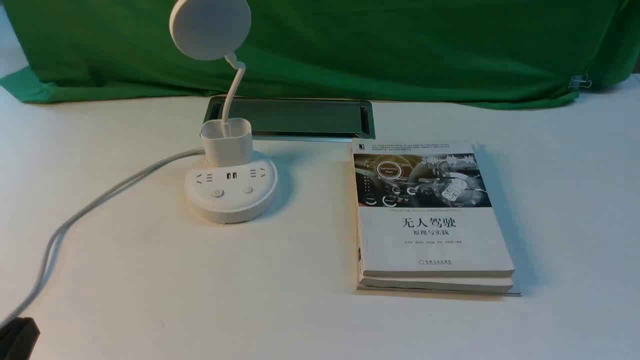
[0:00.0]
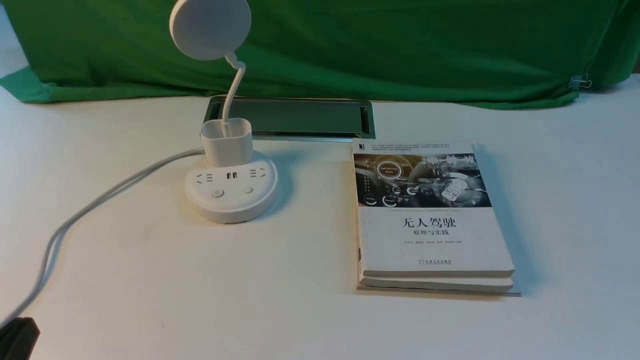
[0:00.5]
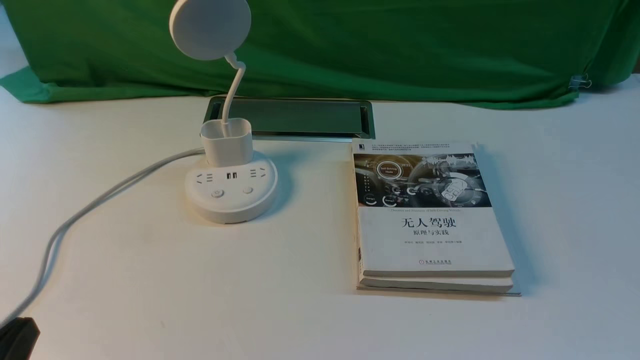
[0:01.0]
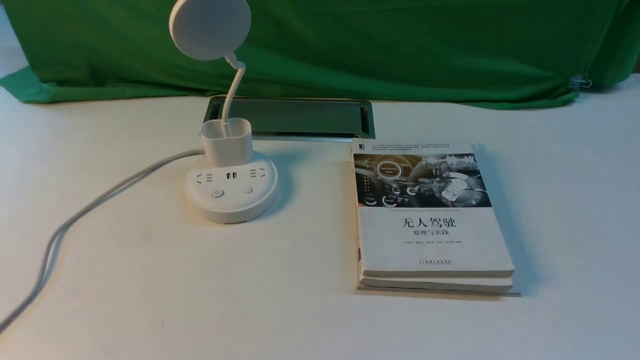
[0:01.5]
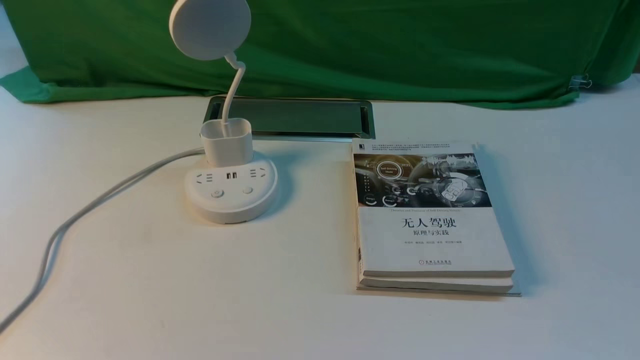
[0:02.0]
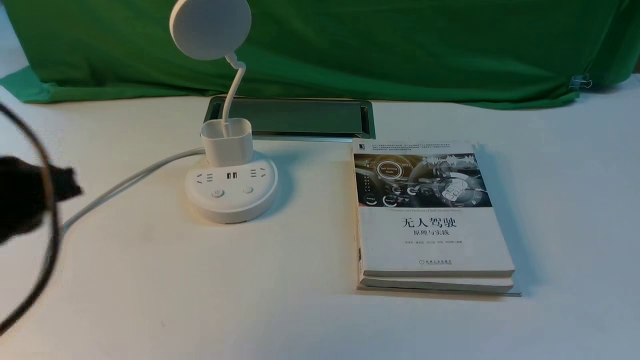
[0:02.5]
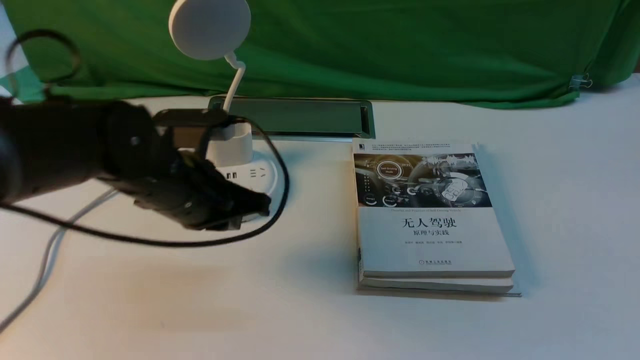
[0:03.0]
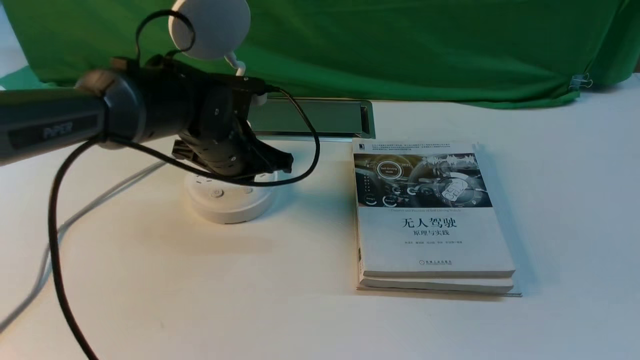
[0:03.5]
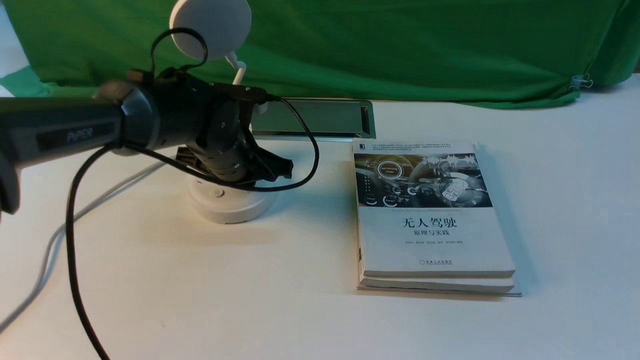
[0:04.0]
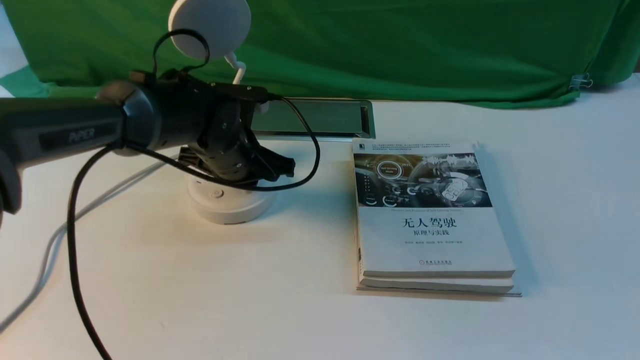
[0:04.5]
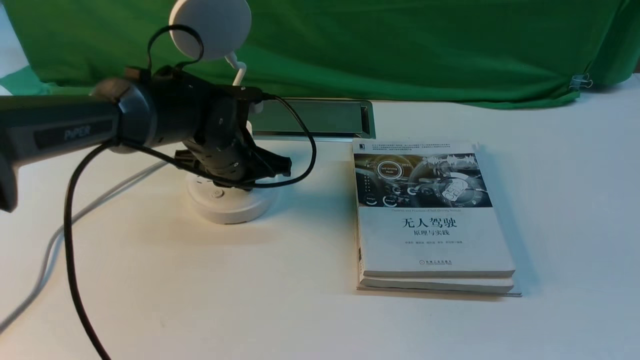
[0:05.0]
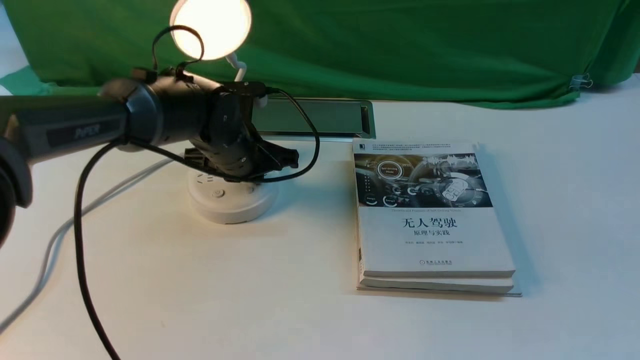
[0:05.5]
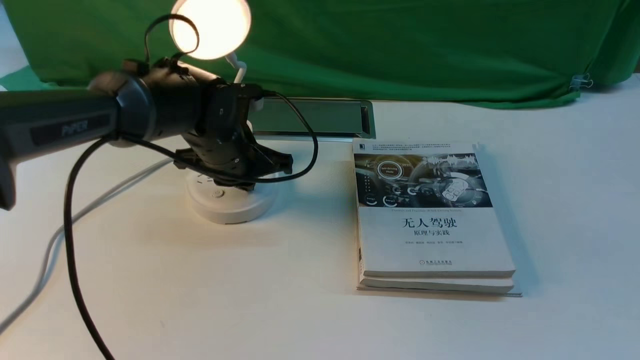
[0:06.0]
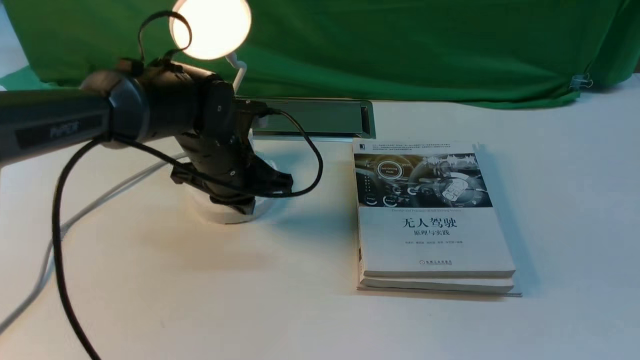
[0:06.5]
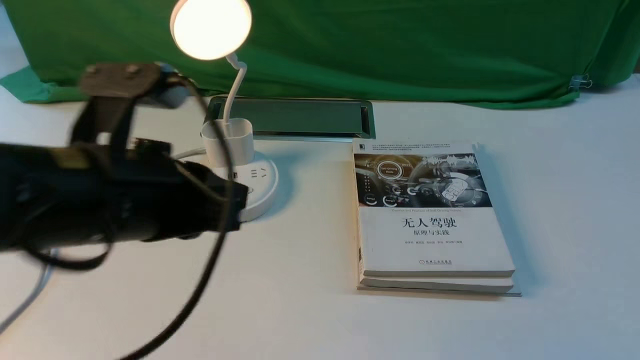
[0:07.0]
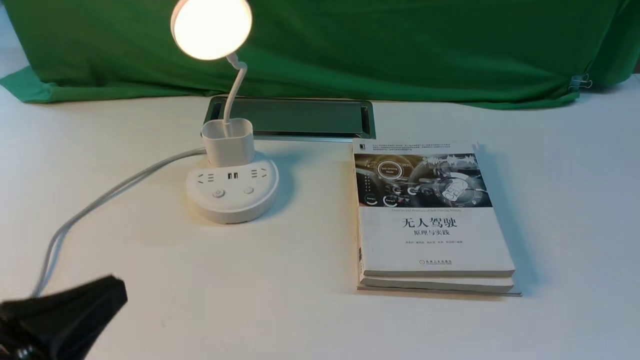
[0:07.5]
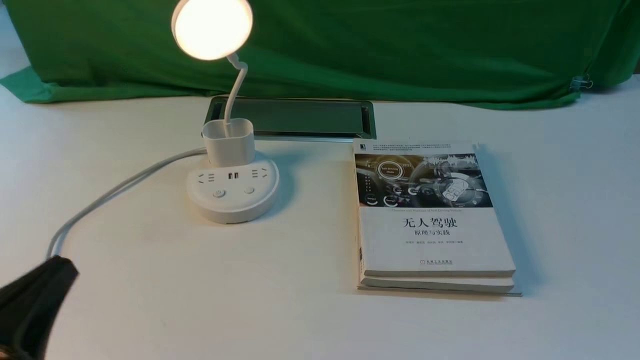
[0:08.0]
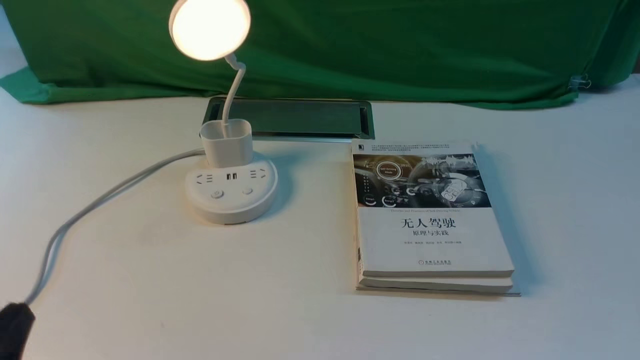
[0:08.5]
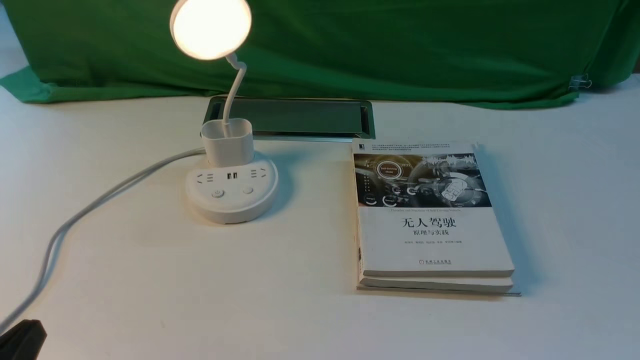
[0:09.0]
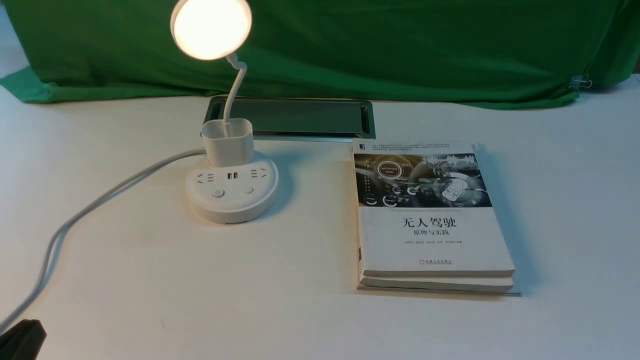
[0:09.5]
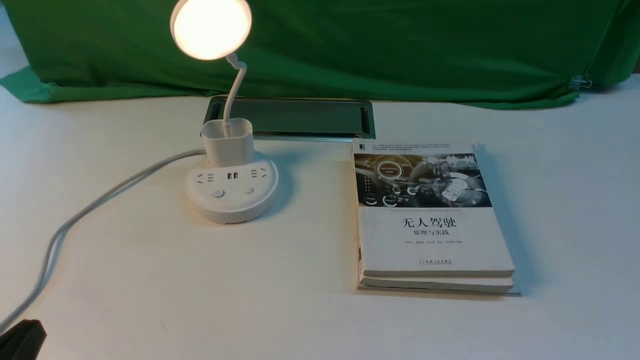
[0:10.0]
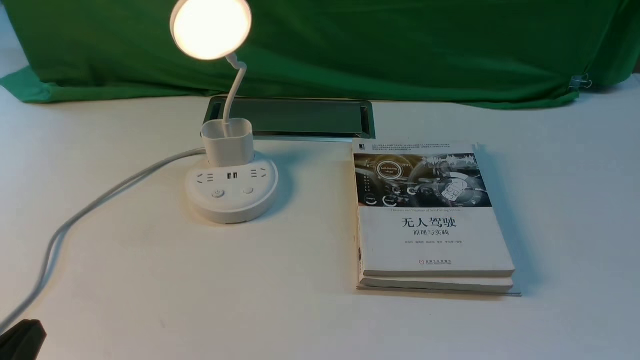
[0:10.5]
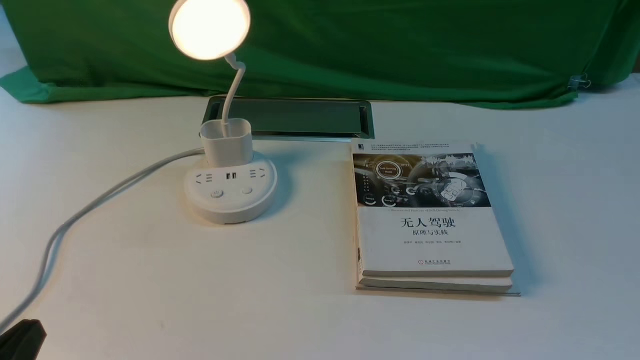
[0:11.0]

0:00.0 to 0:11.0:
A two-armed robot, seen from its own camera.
Step, 0:00.0 to 0:06.5: use the left arm to press the button switch on the lamp holder.
0:02.0 to 0:03.5: The left gripper moves forward, to the right and downward, about 40 cm.
0:03.5 to 0:05.5: The grippers make only small movements.
0:05.5 to 0:07.5: The left gripper shifts approximately 35 cm backward.
0:07.5 to 0:09.0: The left gripper shifts approximately 10 cm downward.
0:09.0 to 0:11.0: Both grippers stay put.

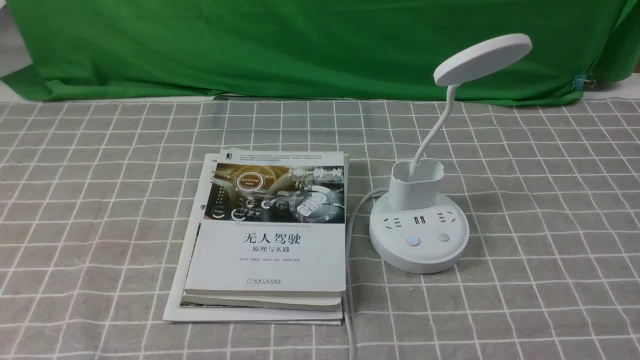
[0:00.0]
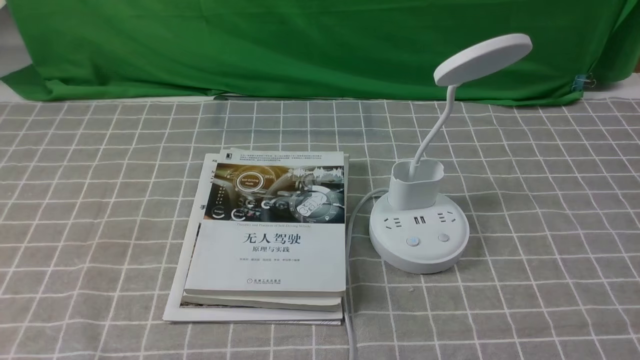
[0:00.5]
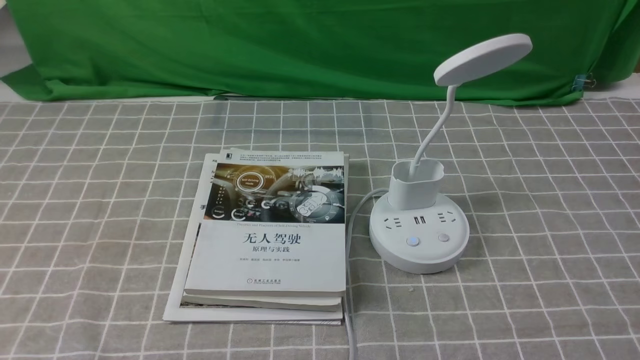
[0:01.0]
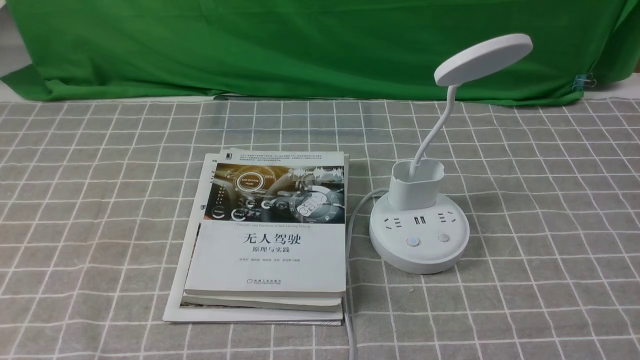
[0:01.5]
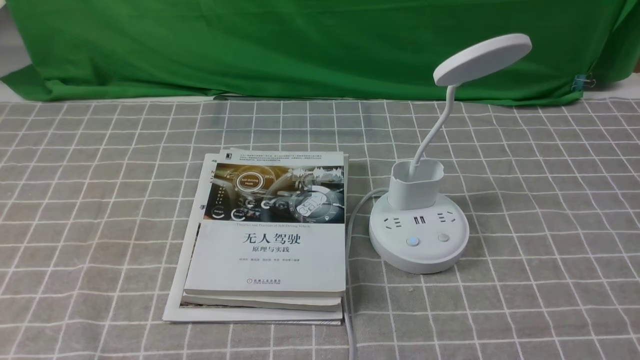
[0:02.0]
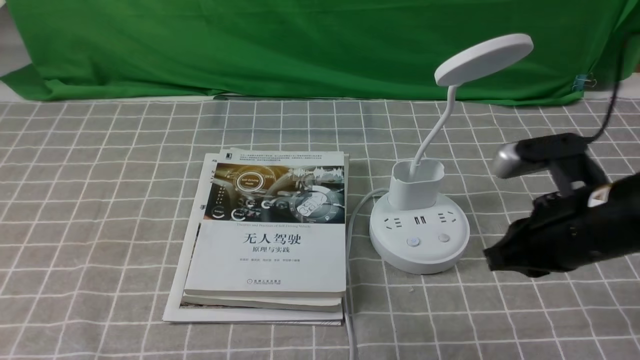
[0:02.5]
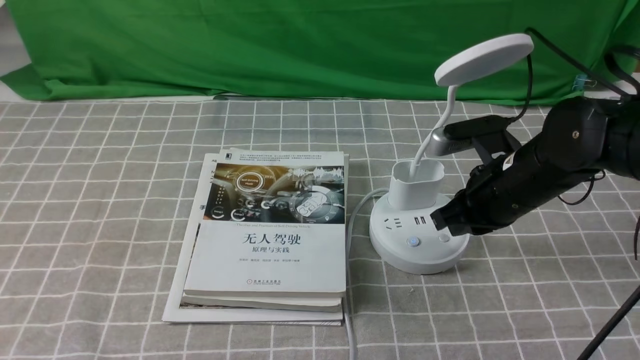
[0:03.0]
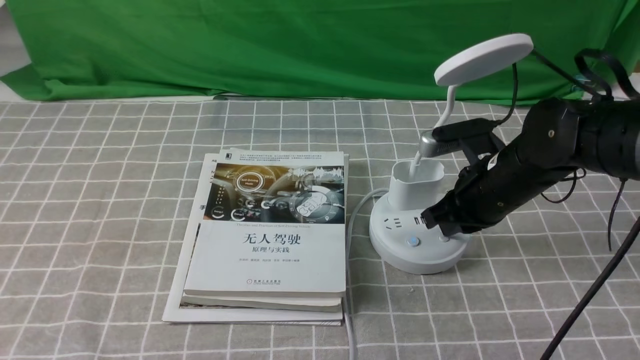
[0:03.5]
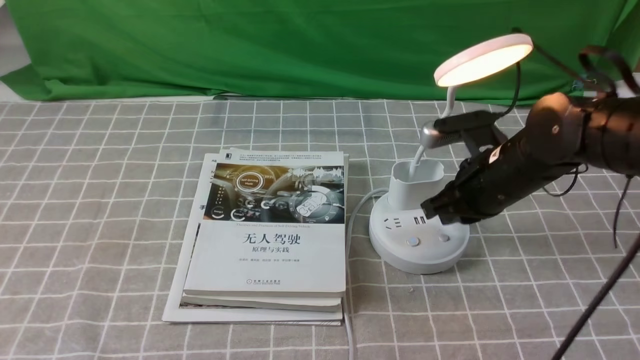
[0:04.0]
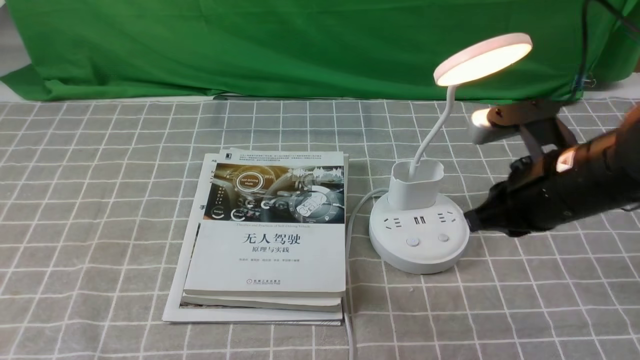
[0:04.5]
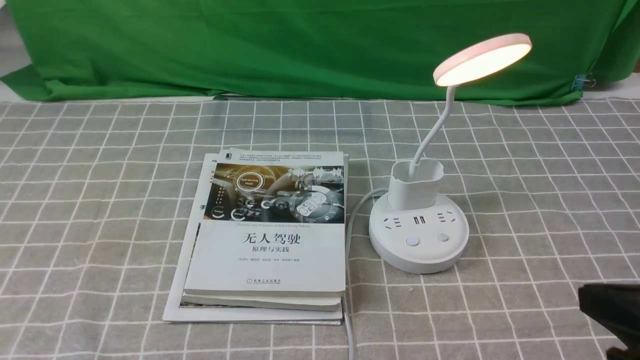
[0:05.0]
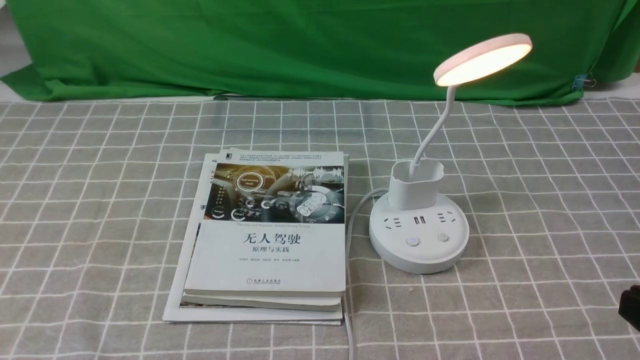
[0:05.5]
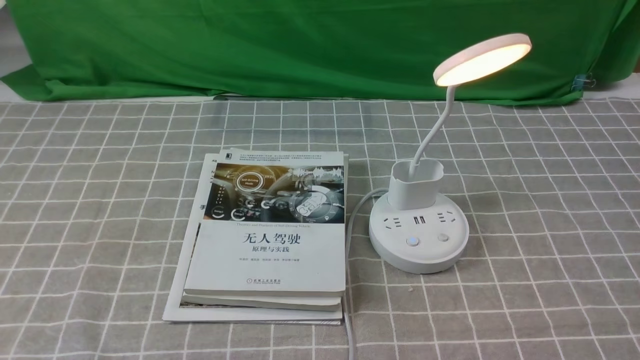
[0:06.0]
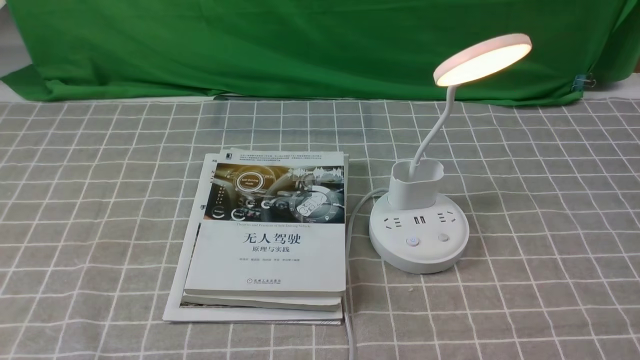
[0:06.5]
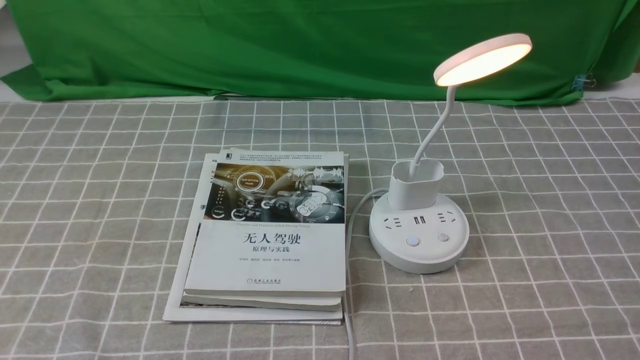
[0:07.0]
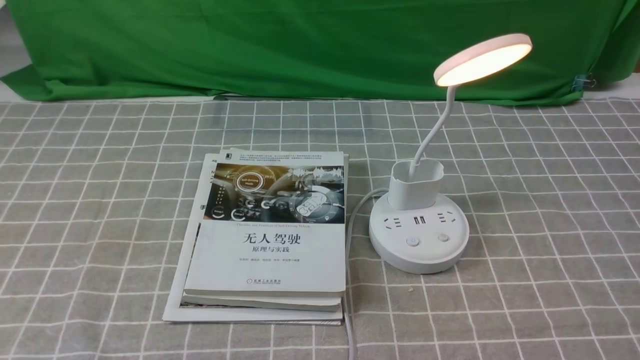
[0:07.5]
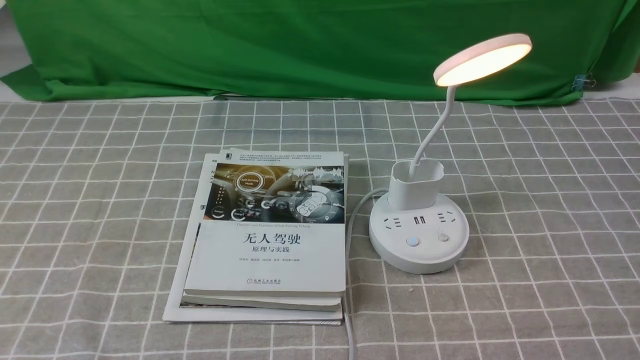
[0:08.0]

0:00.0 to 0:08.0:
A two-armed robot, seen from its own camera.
Step, 0:00.0 to 0:03.5: use the right arm to press the button switch on the lamp holder.
0:02.0 to 0:04.0: The right gripper travels forward and to the left by some 25 cm.
0:04.0 to 0:06.0: The right gripper goes roughly 30 cm backward and to the right.

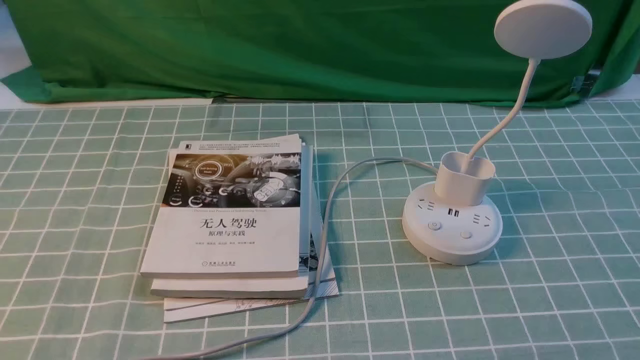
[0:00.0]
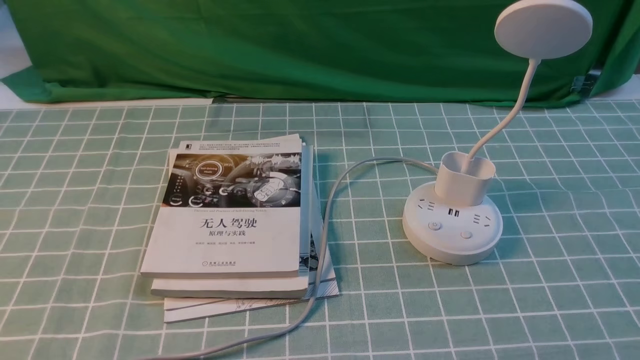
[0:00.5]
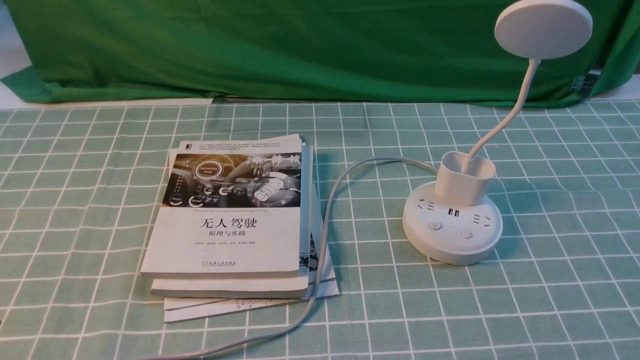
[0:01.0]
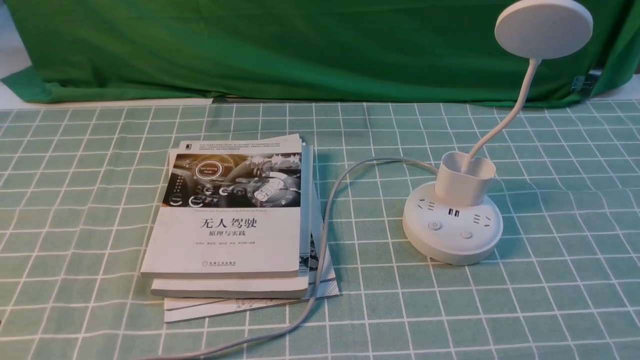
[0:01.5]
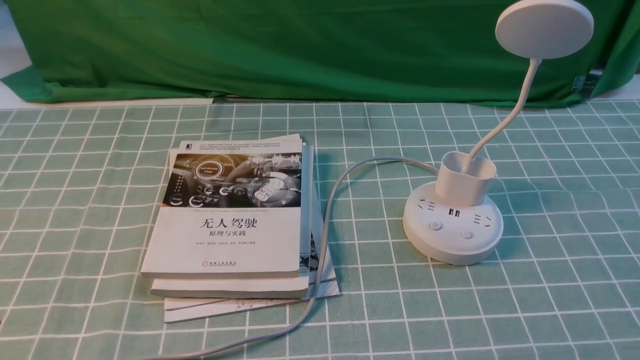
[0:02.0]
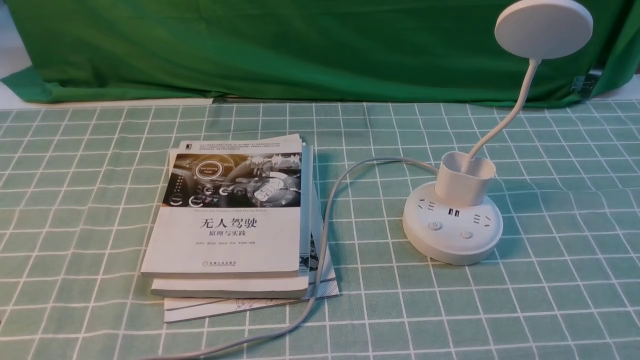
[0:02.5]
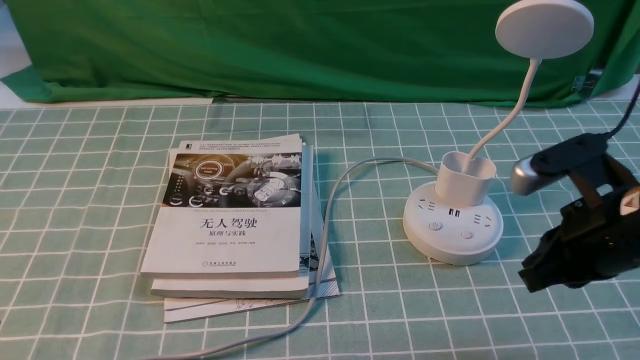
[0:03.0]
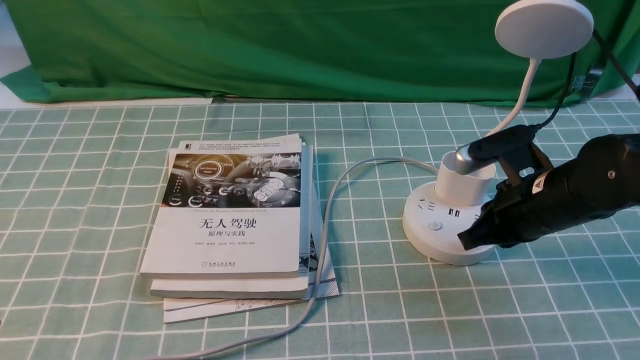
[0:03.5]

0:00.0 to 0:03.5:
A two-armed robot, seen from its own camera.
0:02.0 to 0:03.5: The right gripper shifts roughly 25 cm forward and to the left, and closes.
